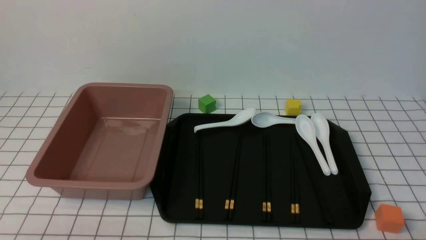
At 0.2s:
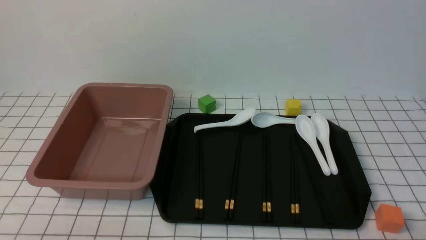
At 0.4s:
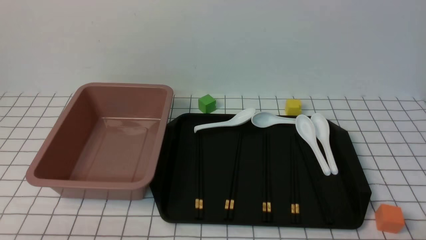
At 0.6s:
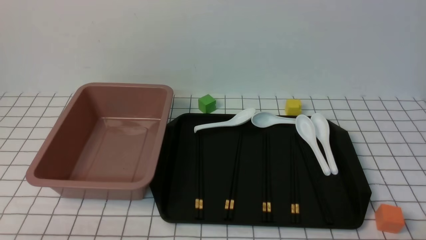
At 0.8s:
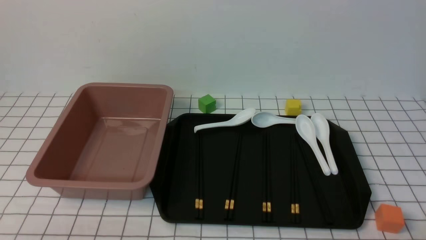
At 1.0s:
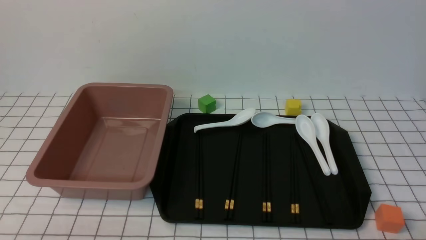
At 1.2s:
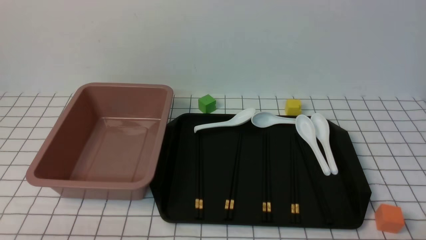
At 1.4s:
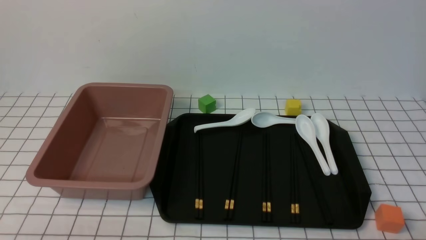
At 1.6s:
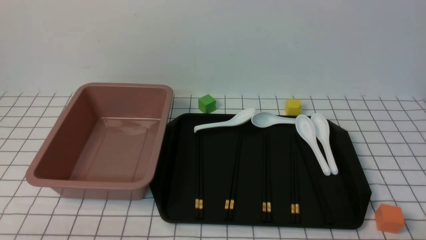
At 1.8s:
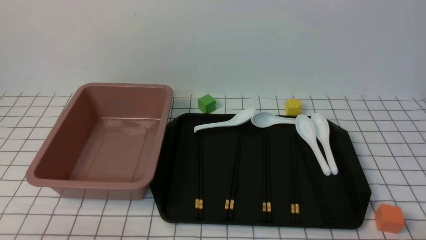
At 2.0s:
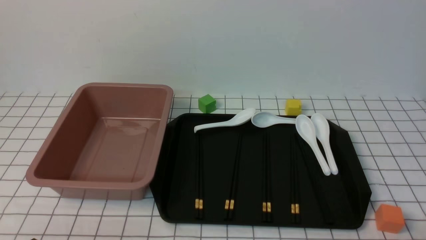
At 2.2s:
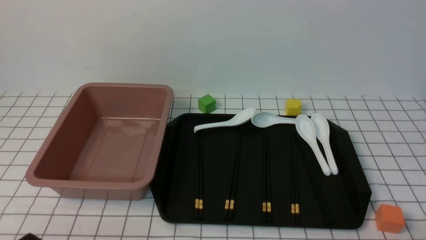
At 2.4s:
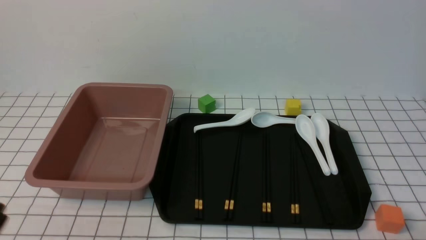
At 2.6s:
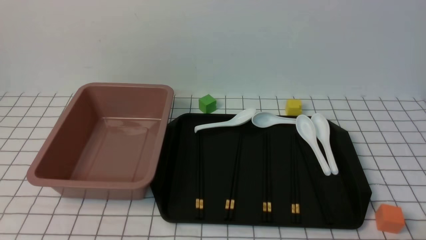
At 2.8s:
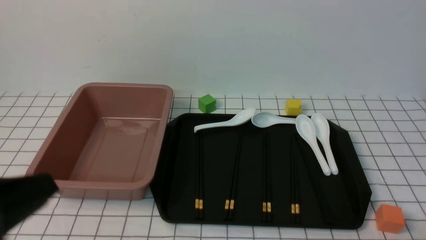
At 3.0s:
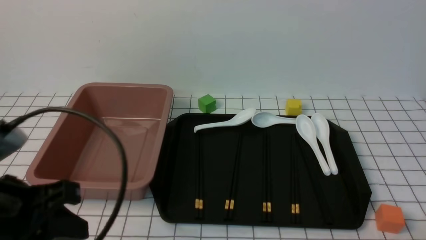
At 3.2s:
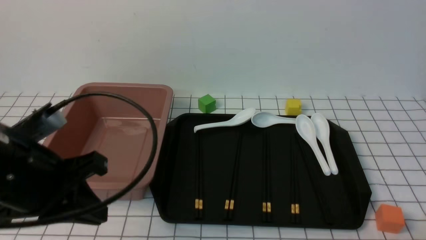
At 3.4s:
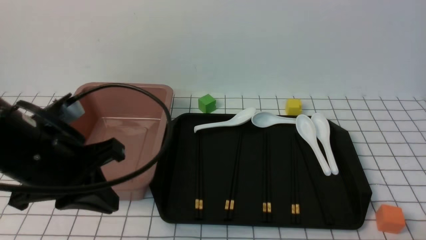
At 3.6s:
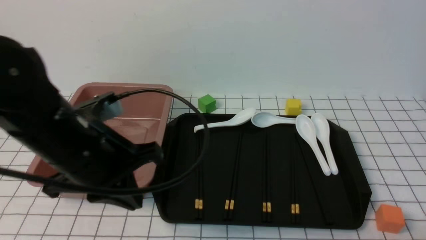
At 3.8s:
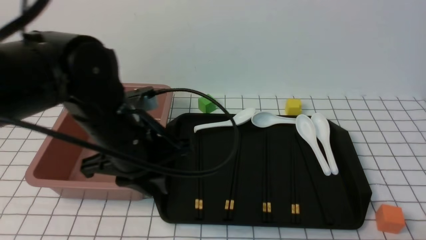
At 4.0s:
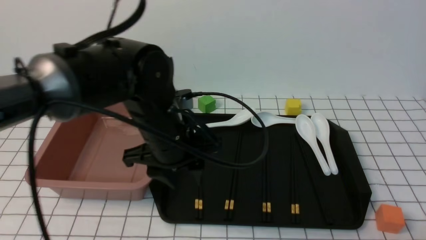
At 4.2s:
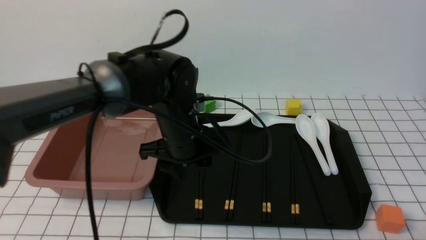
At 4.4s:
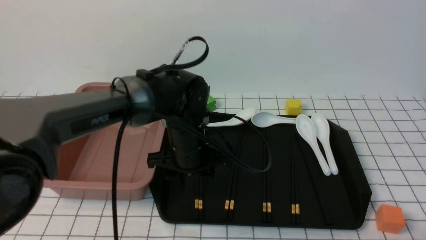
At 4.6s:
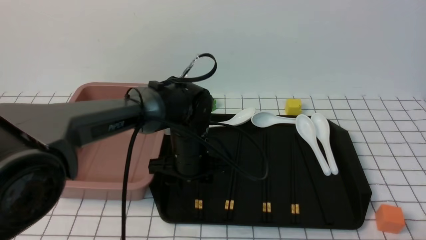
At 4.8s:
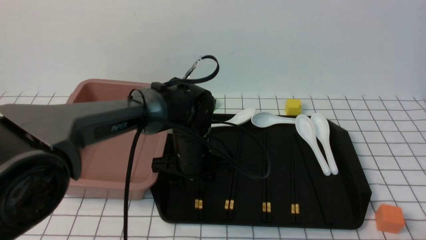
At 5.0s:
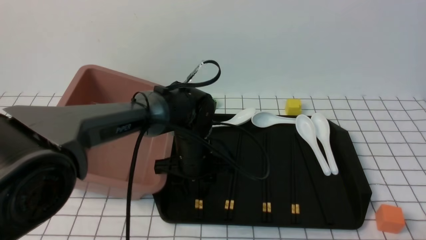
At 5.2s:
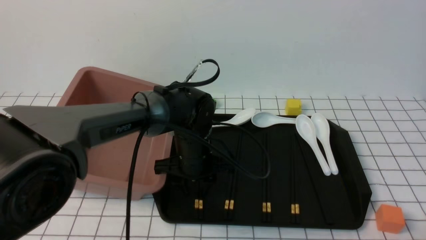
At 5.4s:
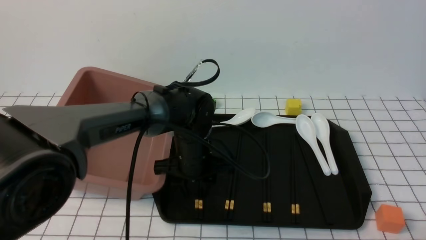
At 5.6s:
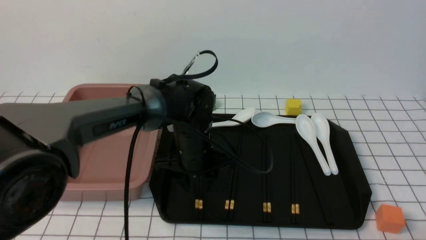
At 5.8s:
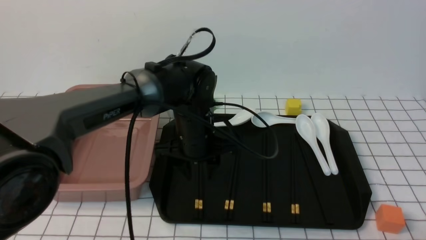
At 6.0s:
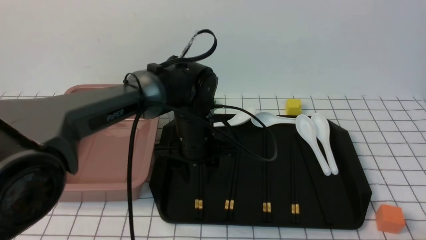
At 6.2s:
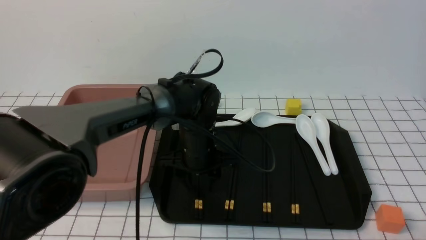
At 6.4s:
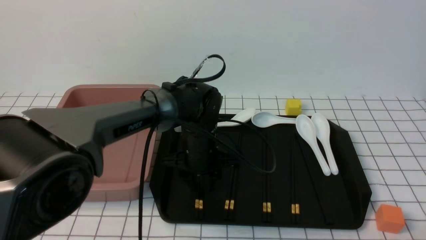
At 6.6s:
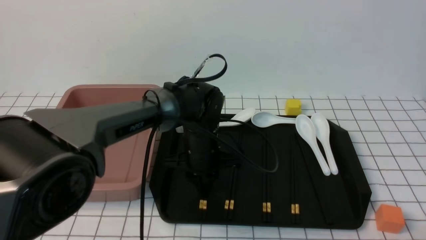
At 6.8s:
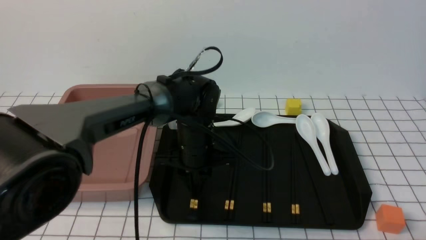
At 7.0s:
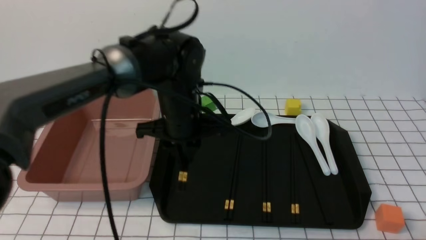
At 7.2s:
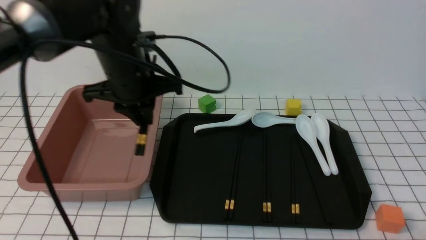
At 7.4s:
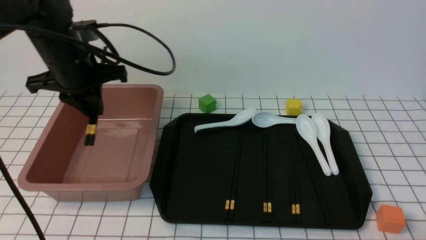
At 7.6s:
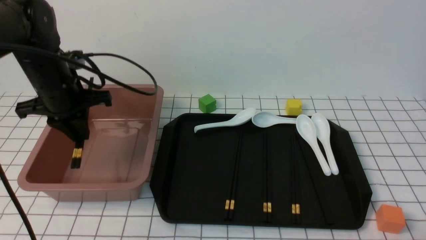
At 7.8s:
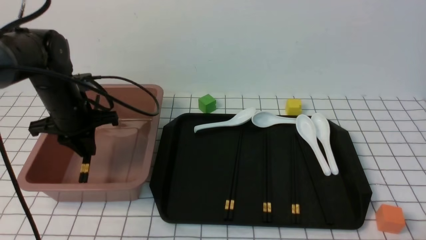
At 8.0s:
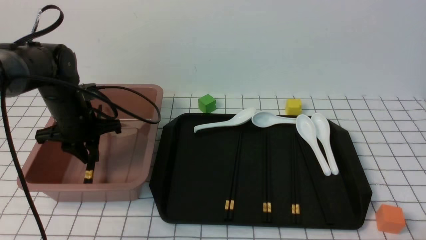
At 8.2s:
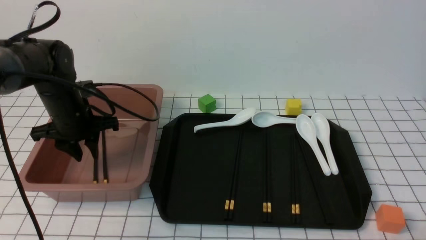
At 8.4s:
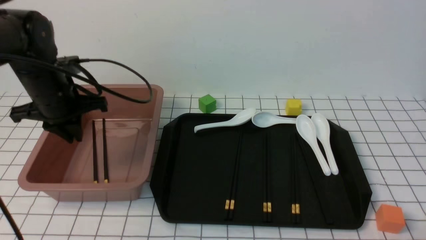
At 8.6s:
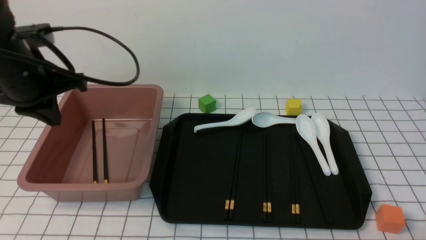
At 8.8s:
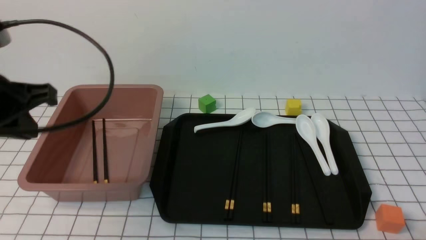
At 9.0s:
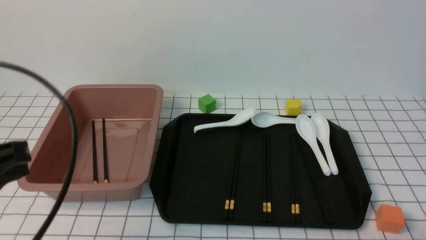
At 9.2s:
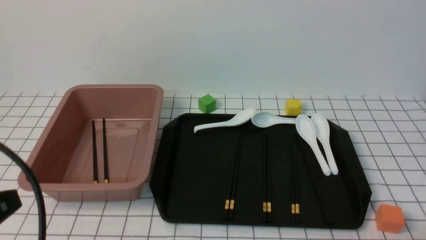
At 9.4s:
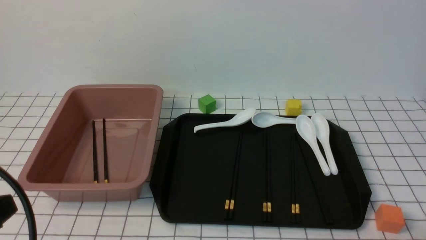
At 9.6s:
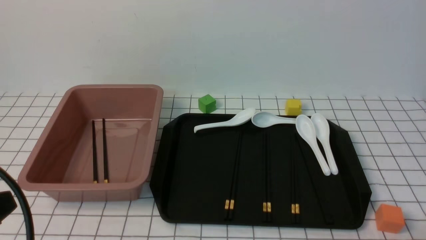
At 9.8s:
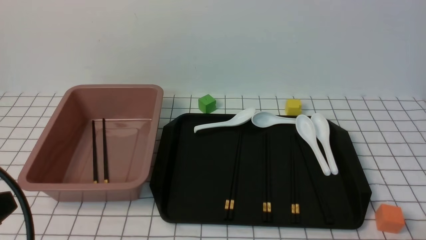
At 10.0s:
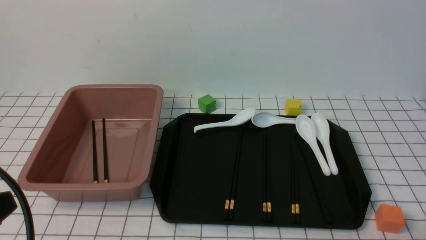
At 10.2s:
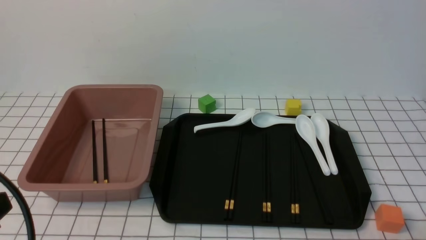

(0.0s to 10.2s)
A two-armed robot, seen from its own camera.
Step, 0.0s - 6.8s: use the left arm to grab a pair of chopsticks.
Step, 7.0s - 8.8s: use the left arm to put the chopsticks into the lunch box.
0.0s - 1.4s: Both grippers stay put.
1.4s - 3.0s: The left gripper goes approximately 15 cm upward and forward, and closes its fingers.
3.0s - 4.4s: The left gripper is displaced forward, to the right and downward by some 30 cm, and opens up.
4.4s - 5.8s: There are only small adjustments of the grippers.
5.8s - 7.2s: The left gripper is displaced upward and to the left by approximately 15 cm, and closes.
7.2s - 8.8s: The left gripper goes about 20 cm backward and to the left.
8.8s - 10.2s: The left gripper shifts roughly 15 cm backward and downward.

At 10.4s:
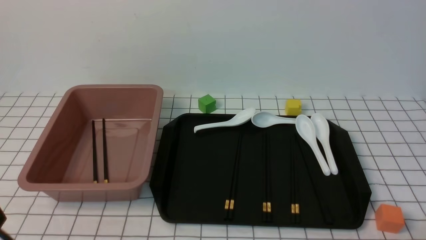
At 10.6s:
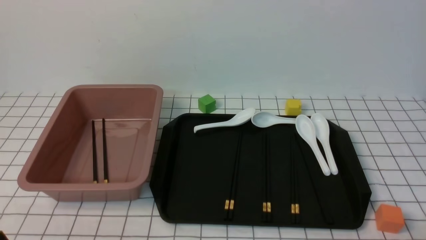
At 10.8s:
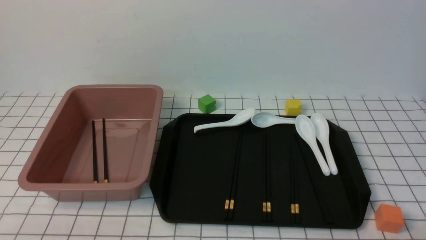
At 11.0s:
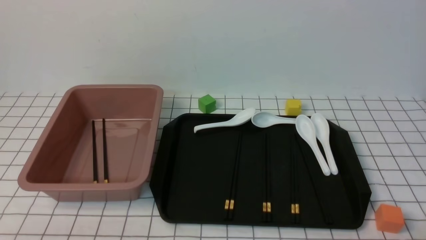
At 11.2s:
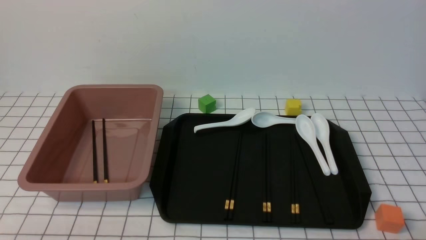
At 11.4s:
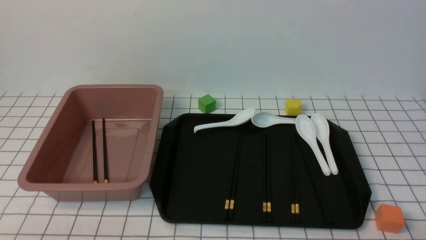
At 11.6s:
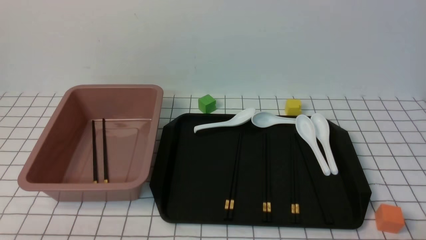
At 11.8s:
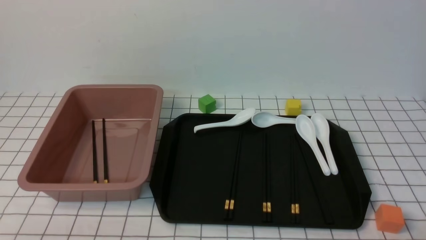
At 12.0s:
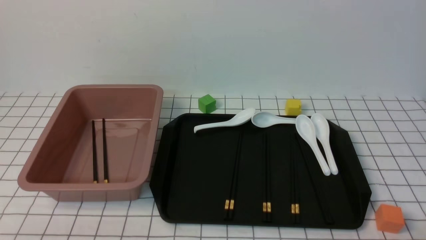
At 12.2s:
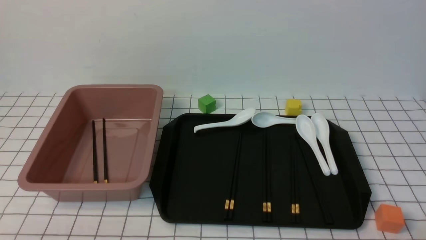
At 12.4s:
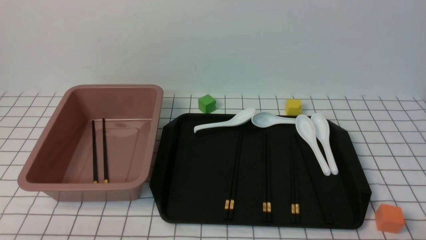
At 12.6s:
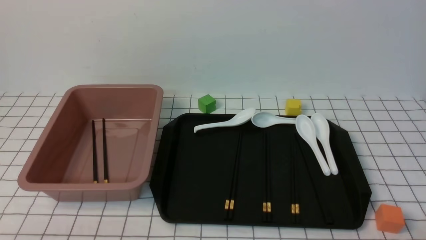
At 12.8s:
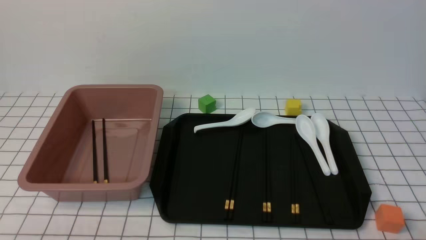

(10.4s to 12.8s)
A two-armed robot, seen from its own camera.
11.6s - 12.8s: The two grippers keep their place.

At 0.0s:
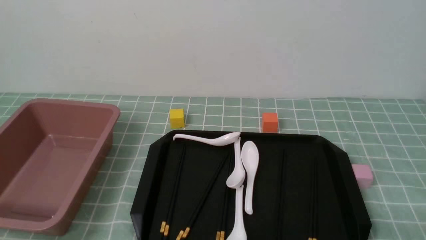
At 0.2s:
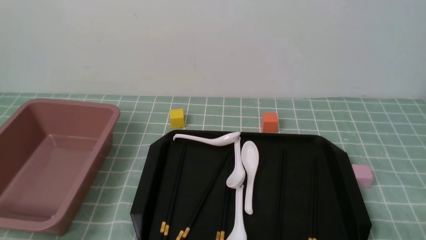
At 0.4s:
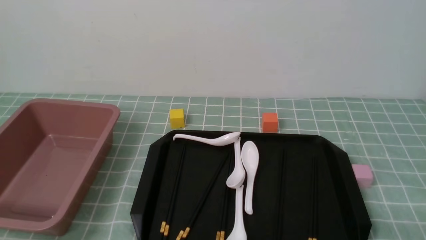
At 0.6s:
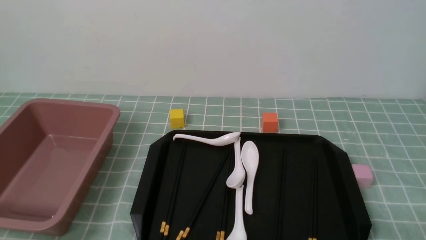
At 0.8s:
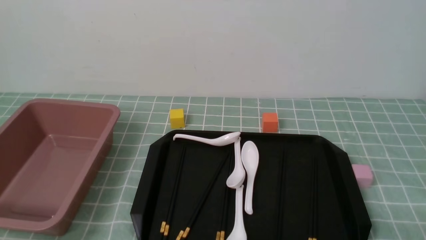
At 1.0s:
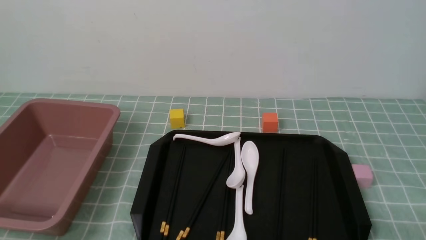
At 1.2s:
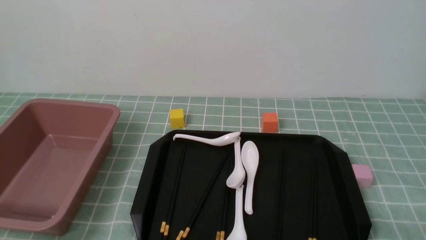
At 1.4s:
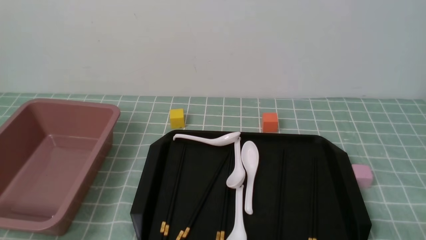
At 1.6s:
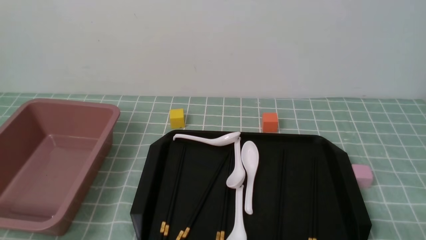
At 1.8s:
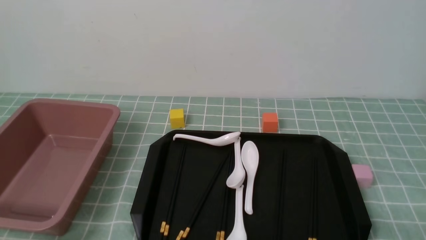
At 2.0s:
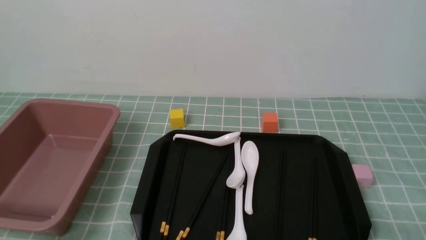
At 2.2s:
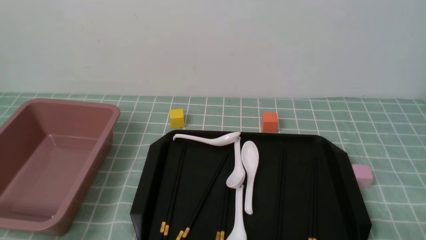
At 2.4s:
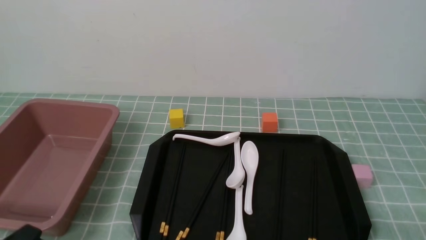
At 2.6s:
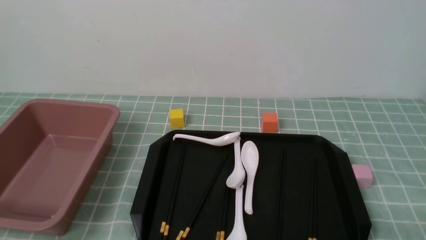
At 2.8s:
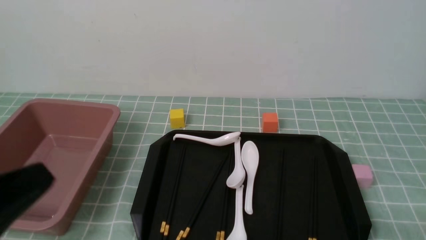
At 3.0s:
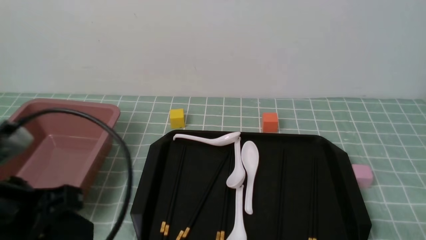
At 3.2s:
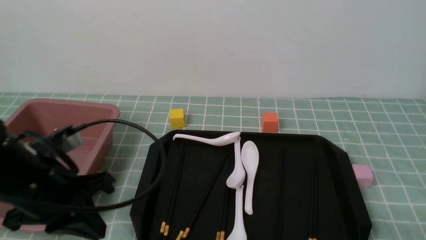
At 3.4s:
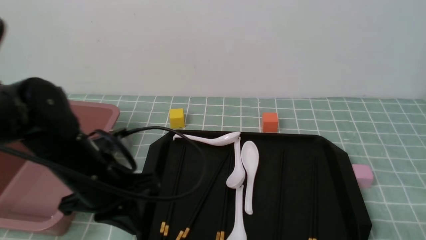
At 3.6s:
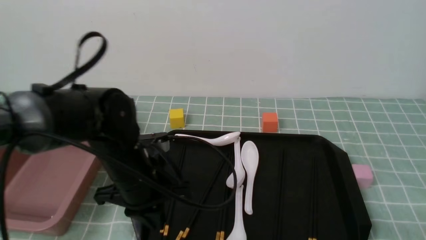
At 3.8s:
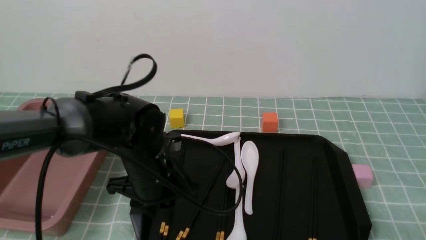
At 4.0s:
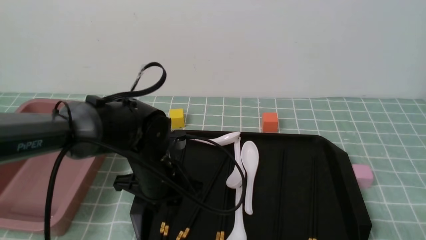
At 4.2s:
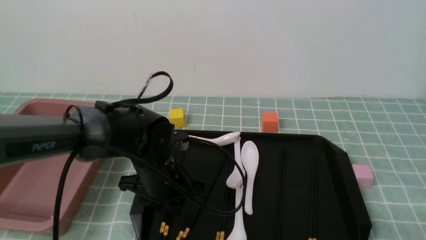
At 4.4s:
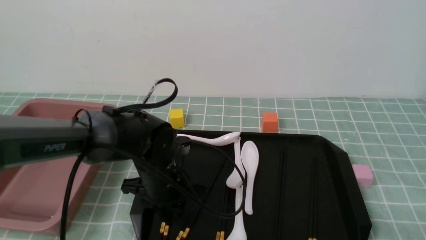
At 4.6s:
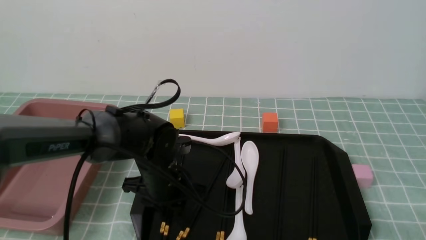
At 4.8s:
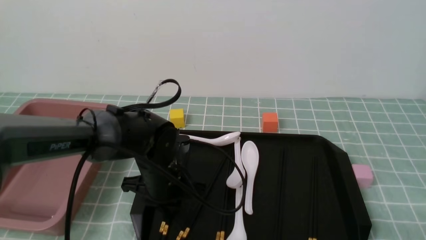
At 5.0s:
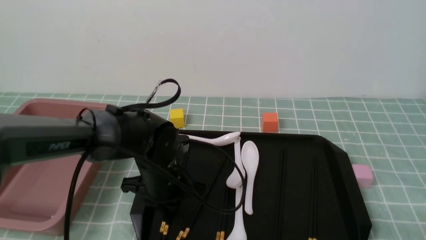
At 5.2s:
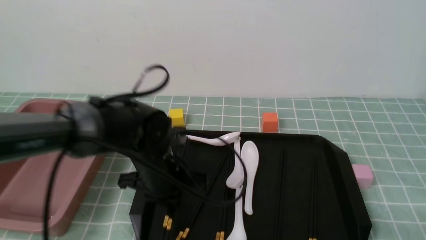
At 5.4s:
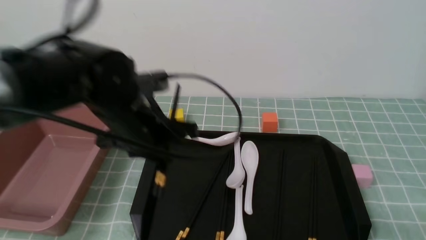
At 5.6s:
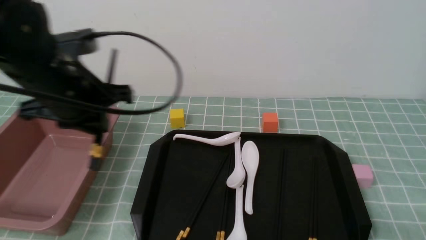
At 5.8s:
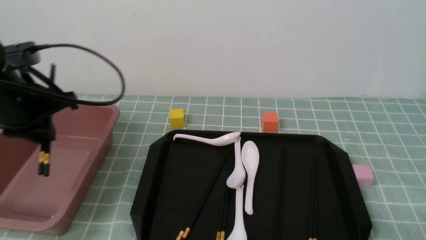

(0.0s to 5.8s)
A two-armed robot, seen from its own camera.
Step, 0.0s - 5.2s: use the left arm to grab a pair of chopsticks.
1.4s - 2.8s: The left gripper shifts some 15 cm upward, and closes.
2.8s - 4.4s: The left gripper goes about 30 cm forward, to the right and downward, and opens up.
4.4s - 5.8s: The left gripper goes some 20 cm upward and to the left, and closes its fingers.
